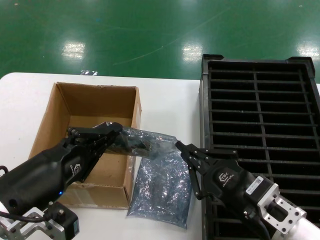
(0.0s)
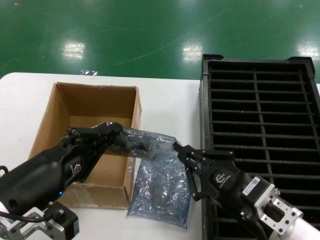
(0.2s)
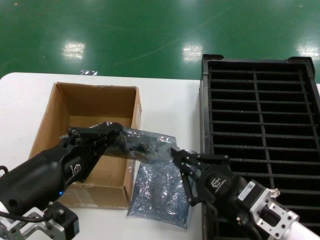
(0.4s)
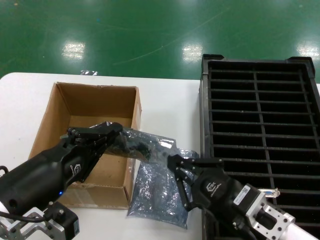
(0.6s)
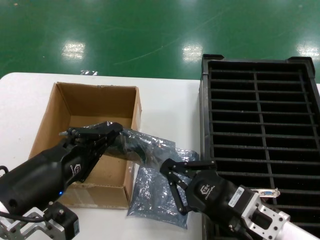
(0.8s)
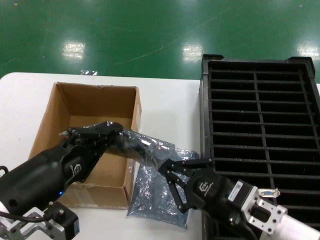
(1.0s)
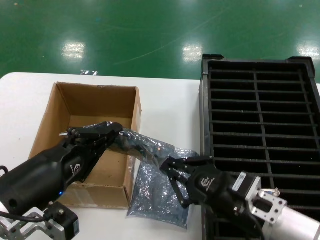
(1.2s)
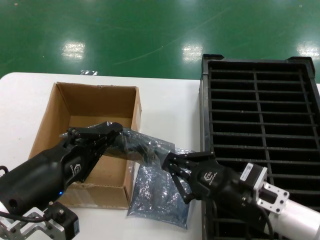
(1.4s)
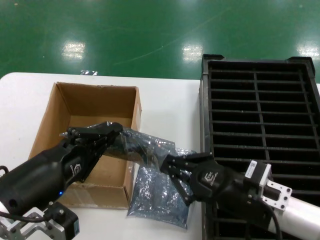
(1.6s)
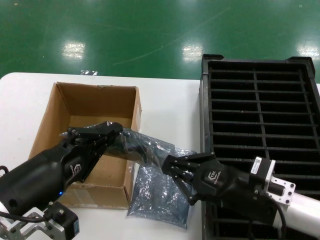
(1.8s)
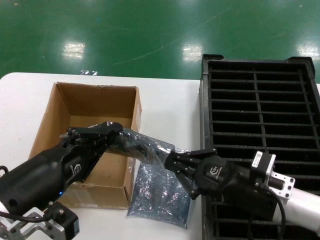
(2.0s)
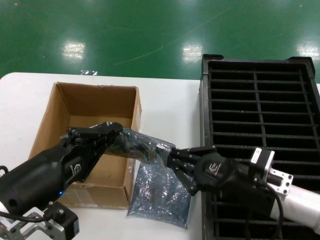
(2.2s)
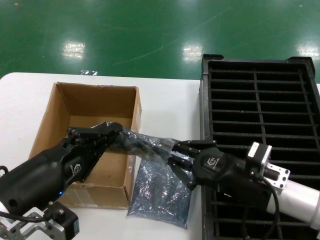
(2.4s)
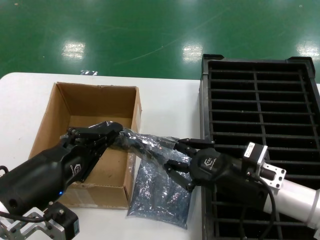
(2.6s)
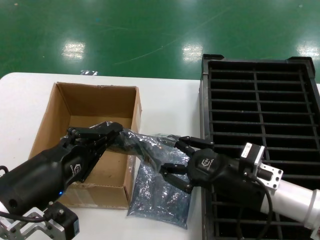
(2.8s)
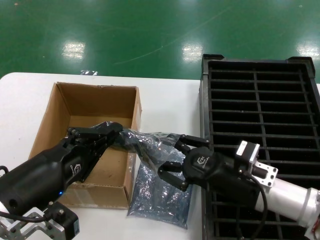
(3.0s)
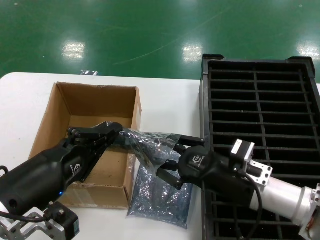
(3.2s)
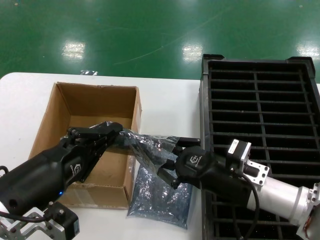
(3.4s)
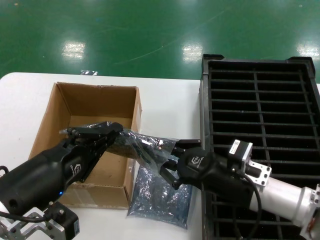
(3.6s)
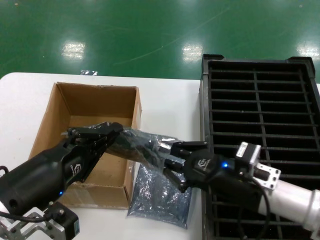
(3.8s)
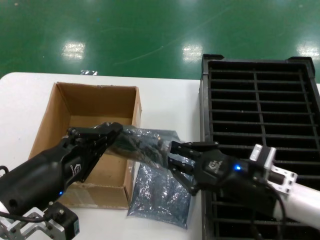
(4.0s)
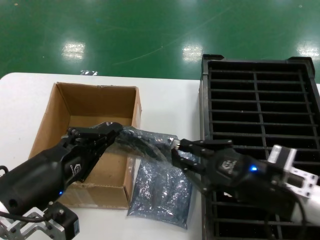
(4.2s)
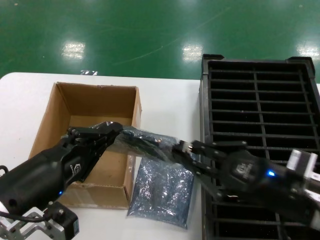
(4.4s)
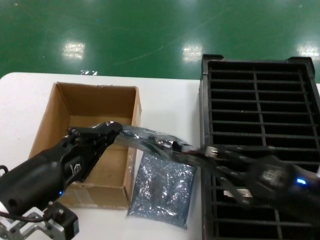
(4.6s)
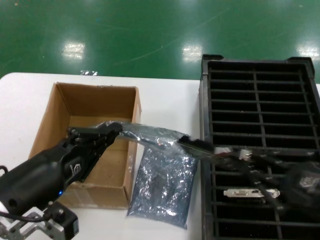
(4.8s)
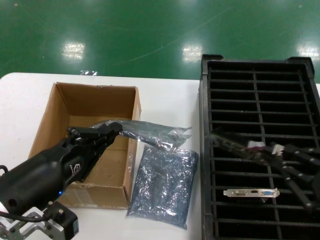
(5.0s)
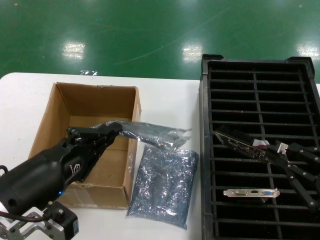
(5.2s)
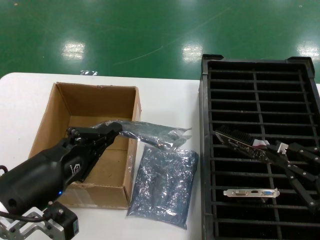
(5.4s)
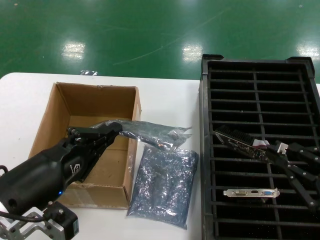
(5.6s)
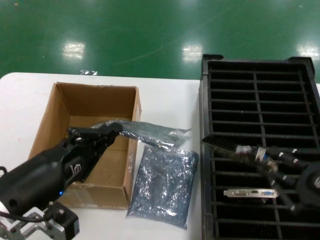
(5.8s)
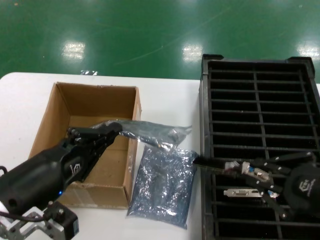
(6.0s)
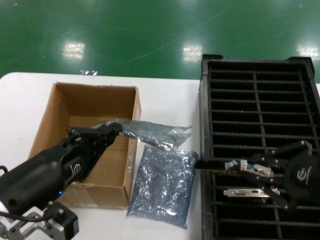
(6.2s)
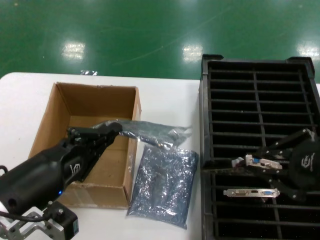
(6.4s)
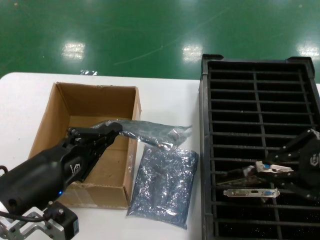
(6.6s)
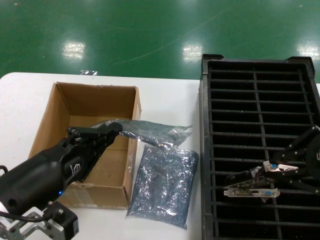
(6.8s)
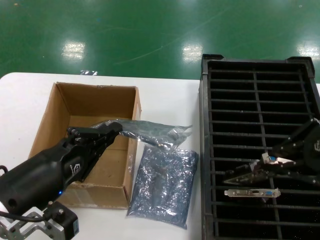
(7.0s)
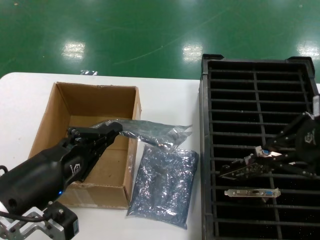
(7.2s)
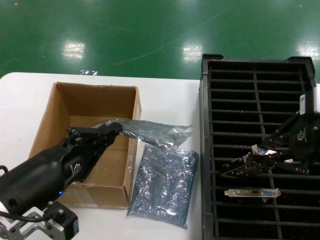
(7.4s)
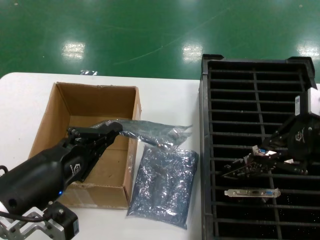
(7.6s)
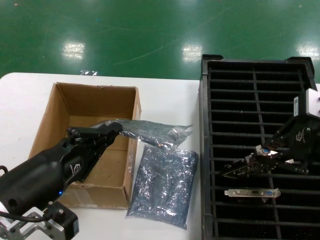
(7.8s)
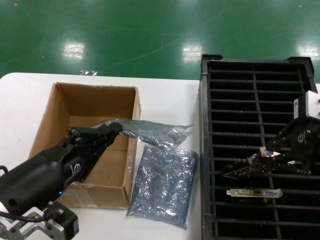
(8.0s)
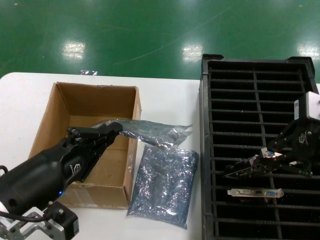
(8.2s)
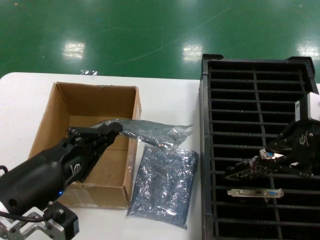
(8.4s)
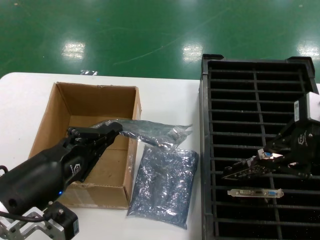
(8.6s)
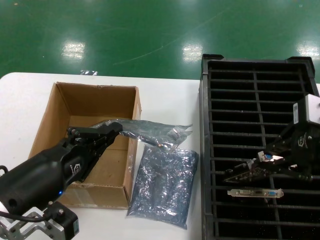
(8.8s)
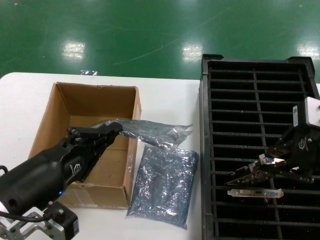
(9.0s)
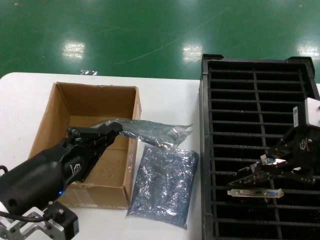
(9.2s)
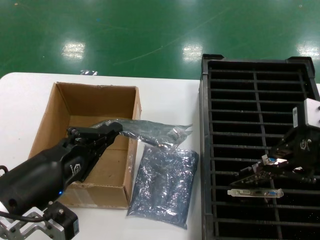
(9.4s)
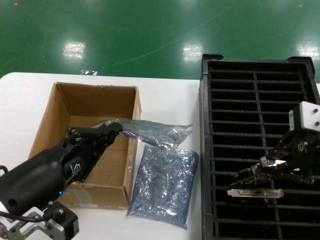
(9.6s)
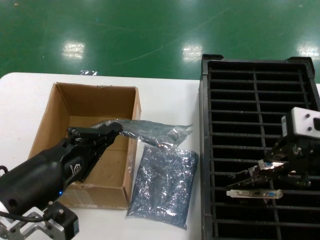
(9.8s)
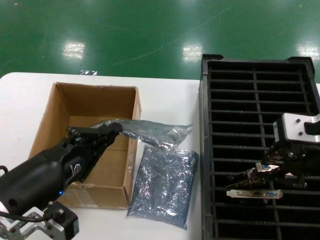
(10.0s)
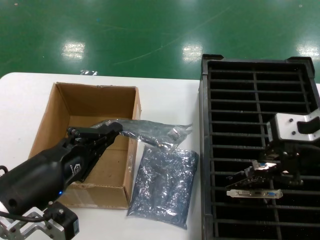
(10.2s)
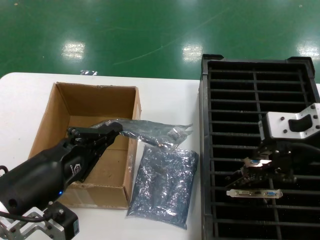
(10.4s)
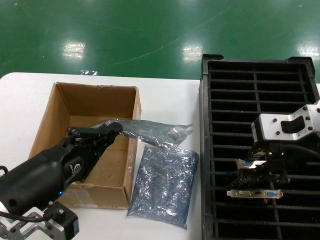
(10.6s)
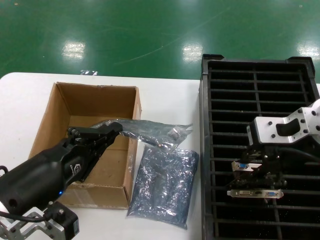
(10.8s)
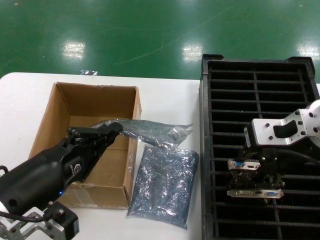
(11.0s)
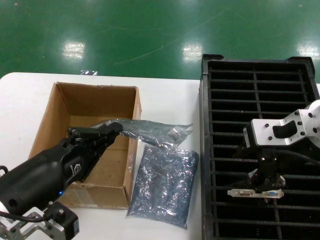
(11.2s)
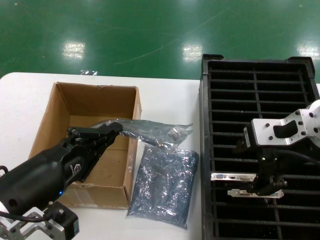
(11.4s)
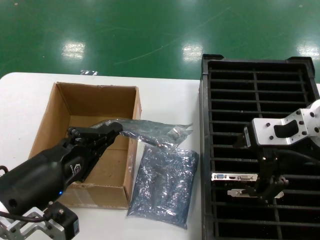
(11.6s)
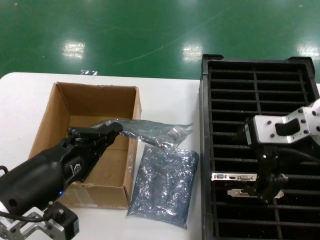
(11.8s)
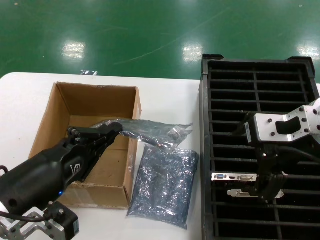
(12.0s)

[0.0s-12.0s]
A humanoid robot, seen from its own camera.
Task of the whole recording: take out graphics card from box remove packaging put into black container.
Step, 0.0s to 4.8s: Take out the hard disk of the bag.
Step, 5.0s to 11.4s: Place the hard disk in the hard disk enclosure.
0.0s to 1.6s: The right hand moves forward, roughly 5 cm.
1.6s to 3.0s: The right hand moves approximately 5 cm.
3.0s to 4.4s: The right hand moves backward, upward and to the right, approximately 10 cm.
4.4s to 6.0s: The right hand is displaced backward, upward and to the right by approximately 10 cm.
6.0s to 7.6s: The right hand heads forward and upward, covering about 15 cm.
7.6s to 9.0s: There are only small adjustments of the hands.
9.0s to 10.4s: The right hand ends up about 5 cm from where it was.
10.4s to 12.0s: There are only small adjustments of the hands.

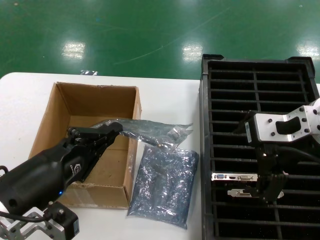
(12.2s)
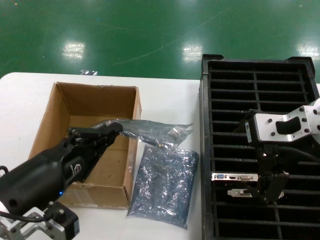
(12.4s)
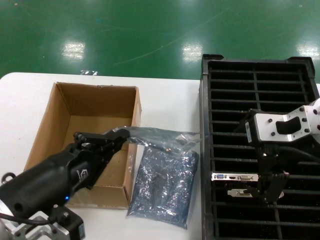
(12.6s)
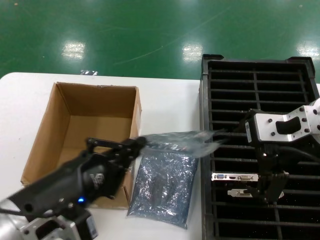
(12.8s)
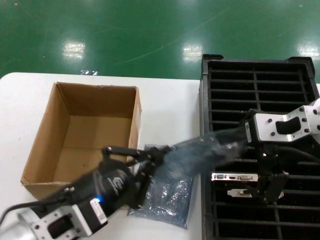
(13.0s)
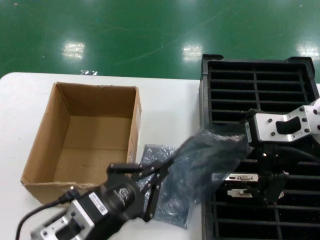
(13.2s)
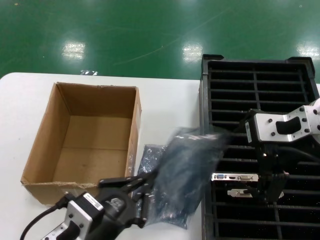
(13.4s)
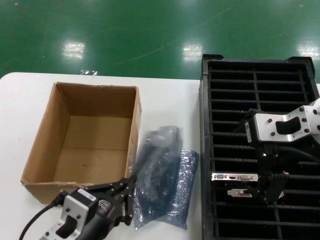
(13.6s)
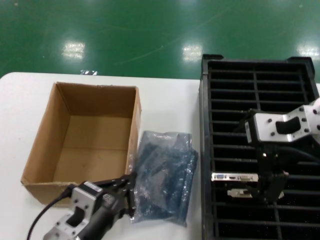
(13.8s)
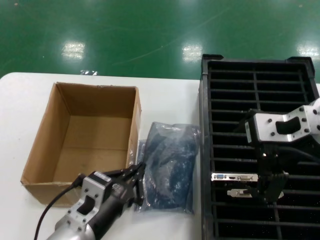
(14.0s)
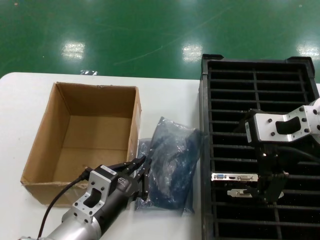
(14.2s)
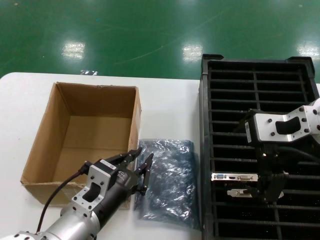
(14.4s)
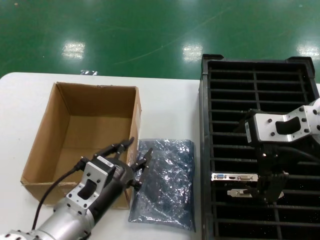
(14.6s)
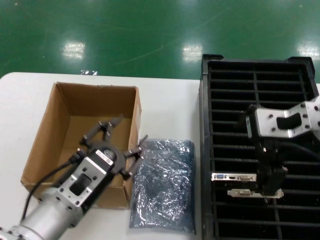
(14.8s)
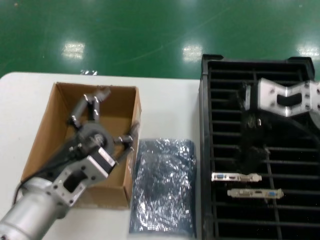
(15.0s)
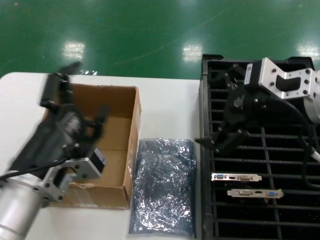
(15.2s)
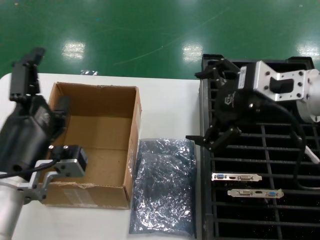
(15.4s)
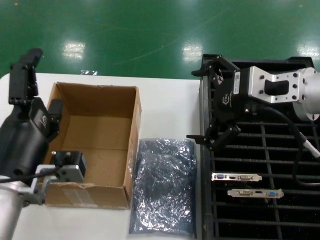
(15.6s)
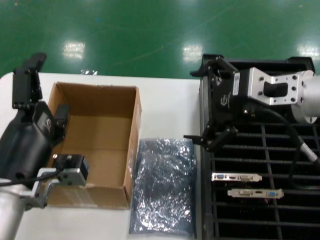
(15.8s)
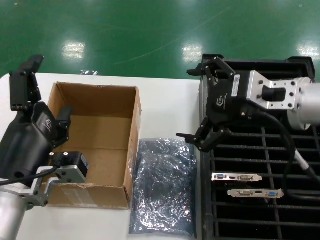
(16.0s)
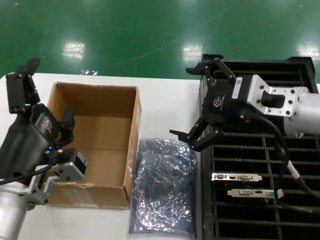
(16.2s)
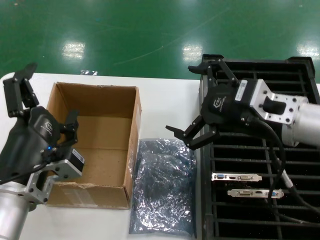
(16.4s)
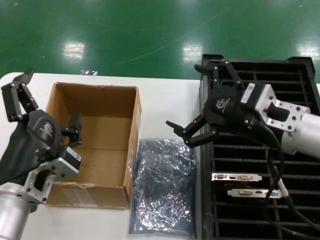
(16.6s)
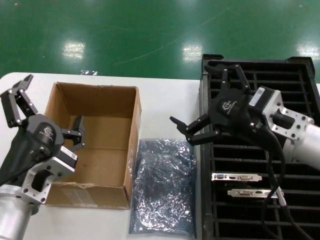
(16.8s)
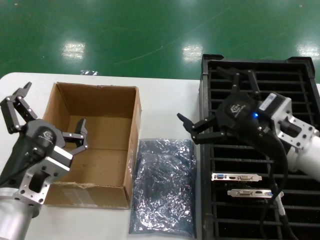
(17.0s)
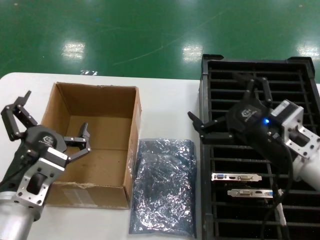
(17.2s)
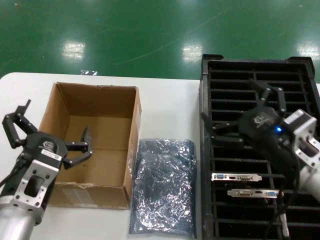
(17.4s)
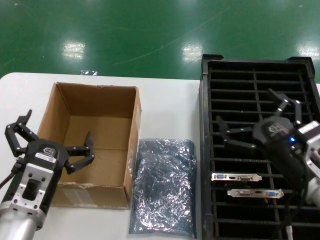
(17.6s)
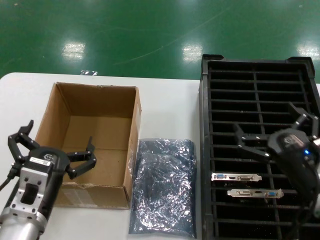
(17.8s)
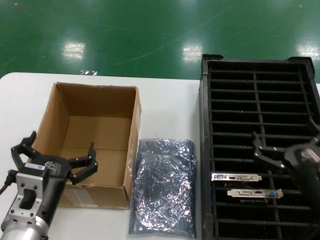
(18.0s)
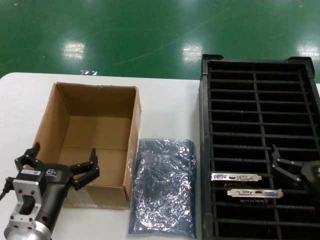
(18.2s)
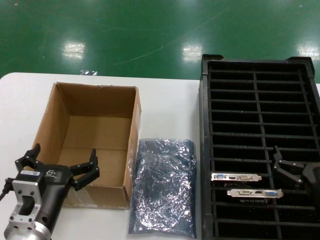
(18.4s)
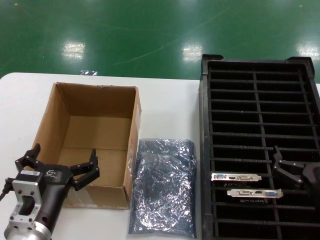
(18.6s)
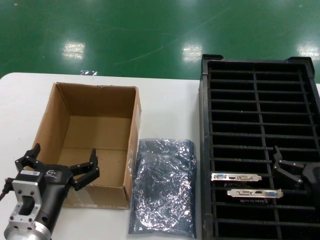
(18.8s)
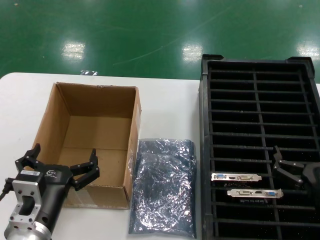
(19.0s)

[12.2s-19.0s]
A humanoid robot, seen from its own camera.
Task of the whole recording: take out graphics card from box remove packaging put into black container.
Step, 12.2s to 14.4s: Place the down the bag.
12.2s to 13.6s: The left hand goes roughly 10 cm downward and to the right.
13.6s to 15.0s: The left hand is displaced upward by roughly 5 cm.
15.0s to 16.2s: The right hand changes place by roughly 5 cm.
16.2s to 17.6s: The right hand goes about 15 cm downward. The left hand moves downward, roughly 5 cm.
17.6s to 19.0s: The right hand travels downward and backward by about 10 cm.
